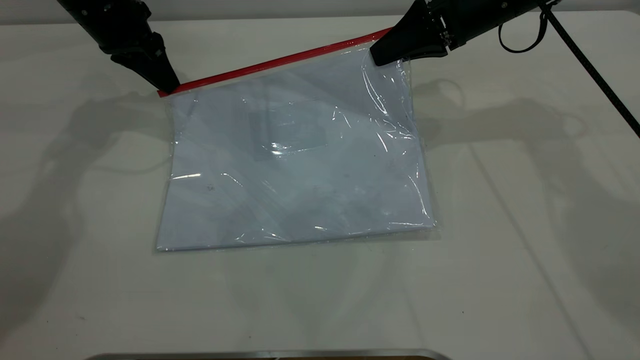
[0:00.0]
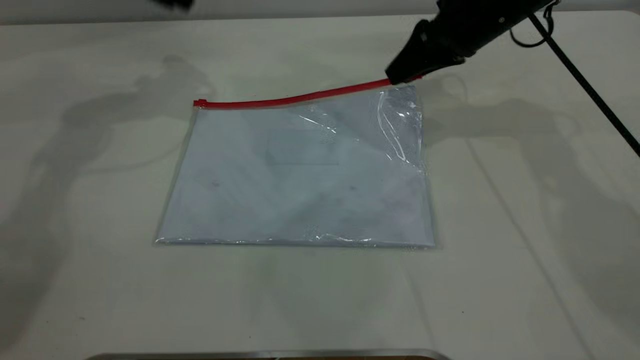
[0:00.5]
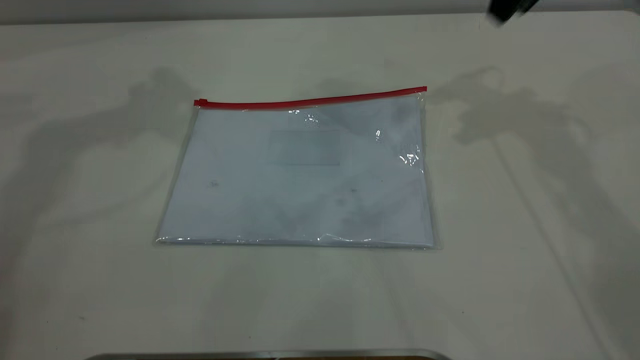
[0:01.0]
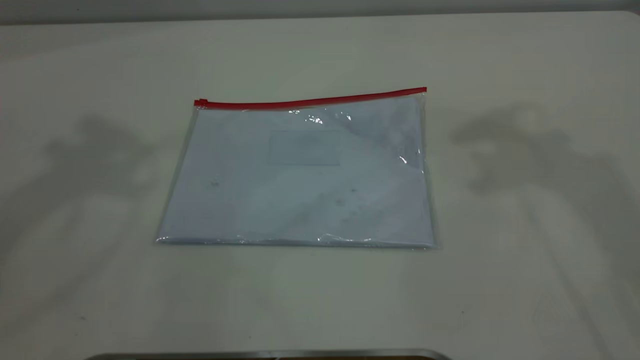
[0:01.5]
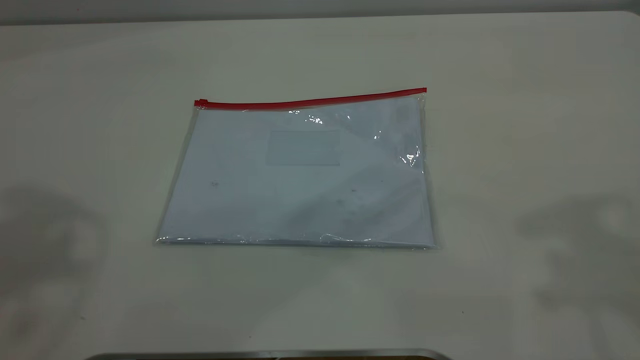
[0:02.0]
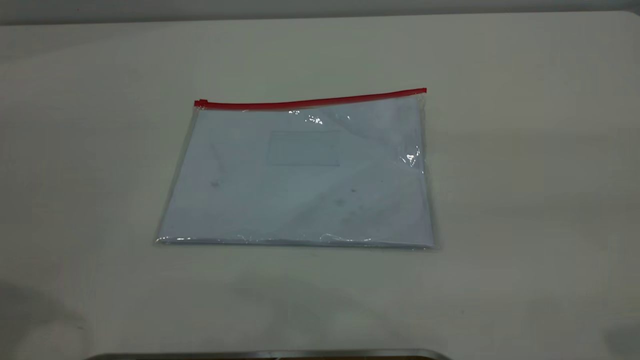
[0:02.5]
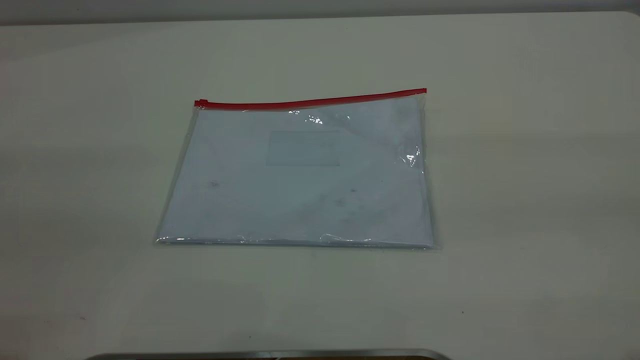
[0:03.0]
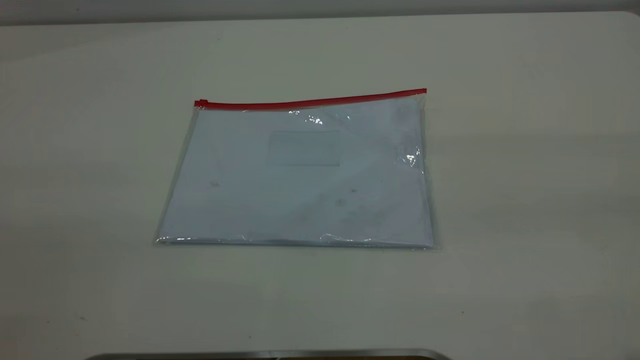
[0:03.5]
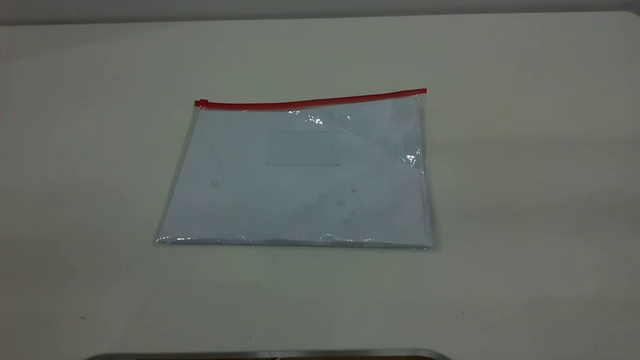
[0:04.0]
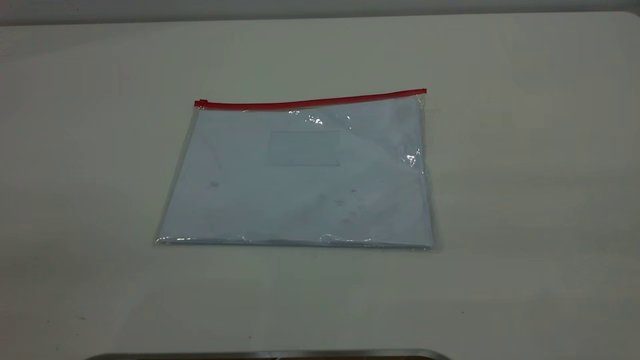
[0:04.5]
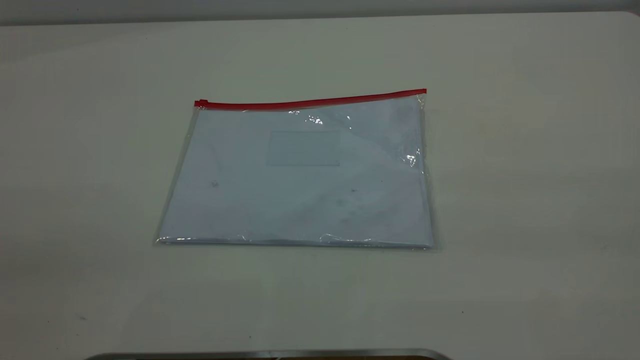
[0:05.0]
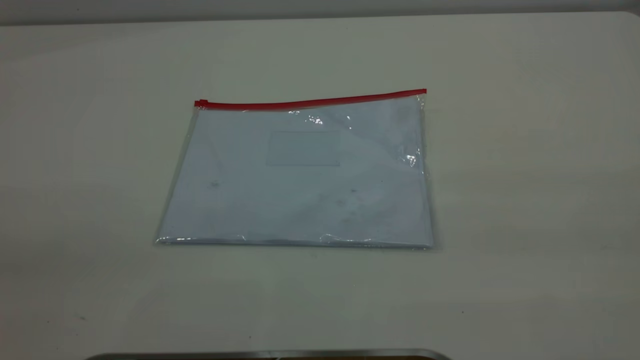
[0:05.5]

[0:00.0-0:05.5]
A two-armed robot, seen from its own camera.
0.0 to 2.0 s: The grippers both shift upward and backward by roughly 40 cm. The right gripper opens its fingers. Meanwhile the left gripper opens its fingers.

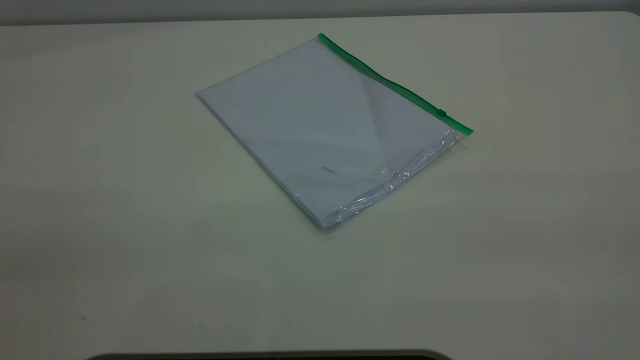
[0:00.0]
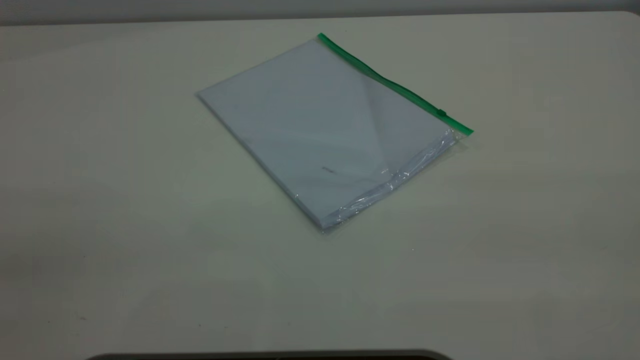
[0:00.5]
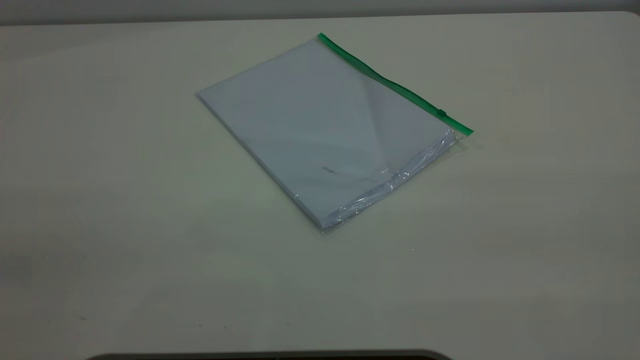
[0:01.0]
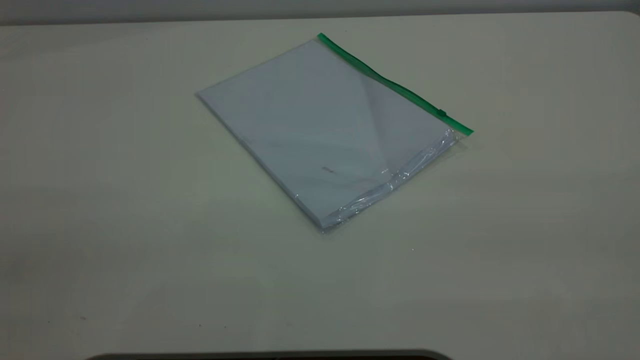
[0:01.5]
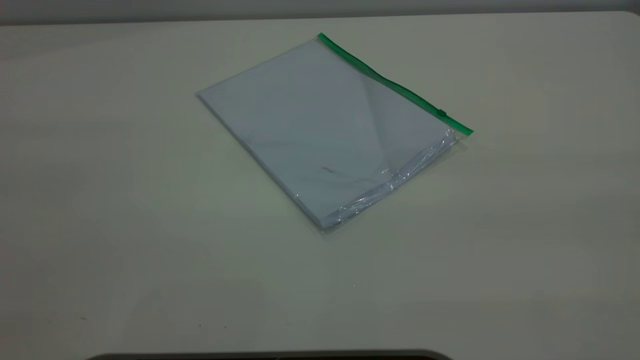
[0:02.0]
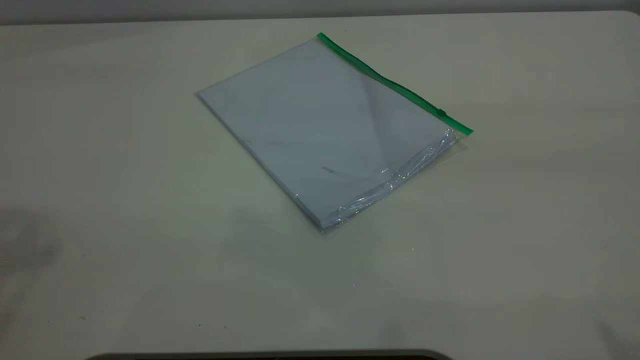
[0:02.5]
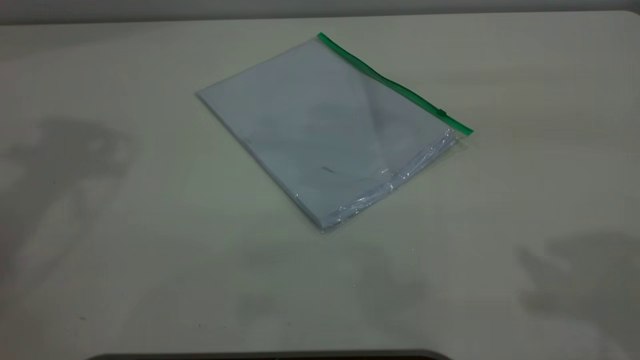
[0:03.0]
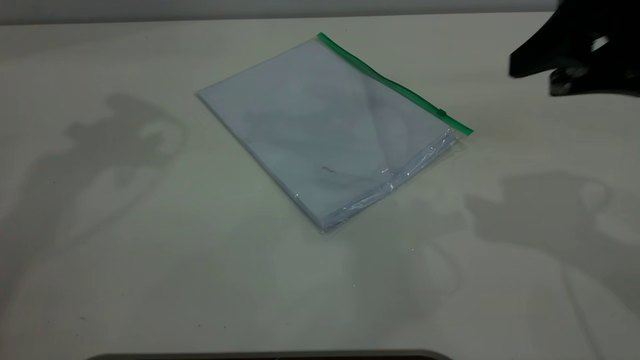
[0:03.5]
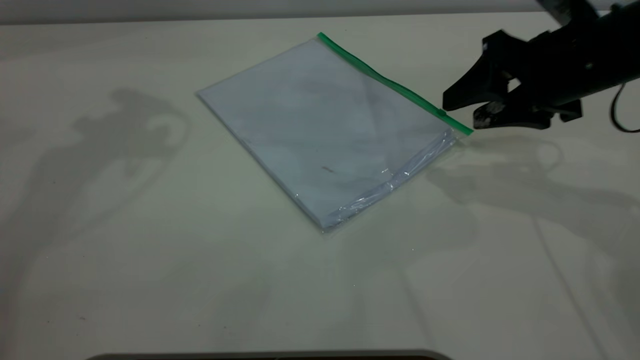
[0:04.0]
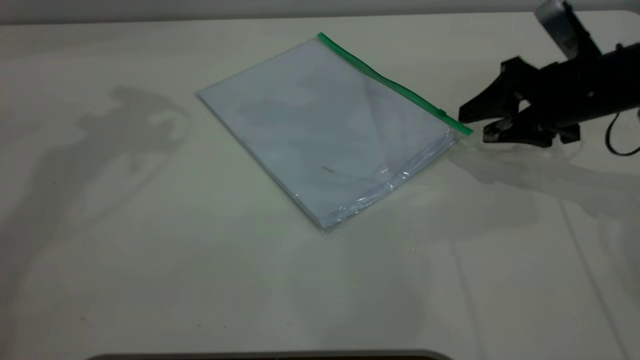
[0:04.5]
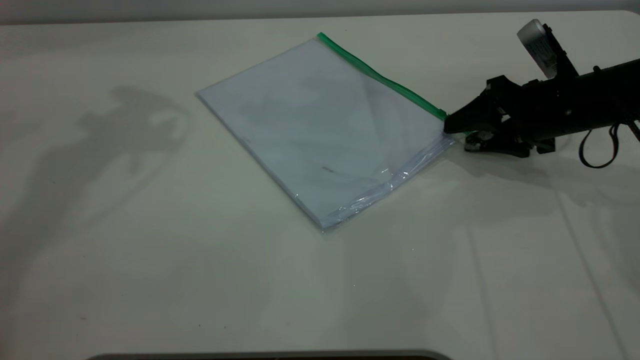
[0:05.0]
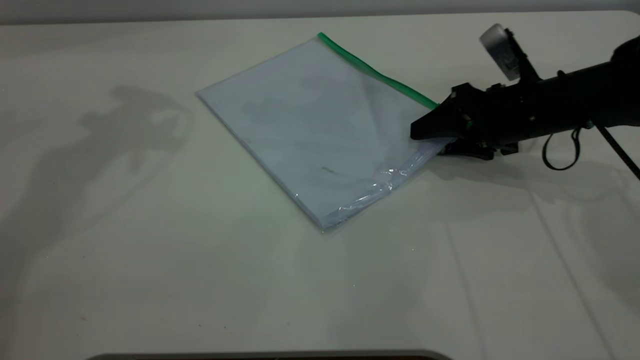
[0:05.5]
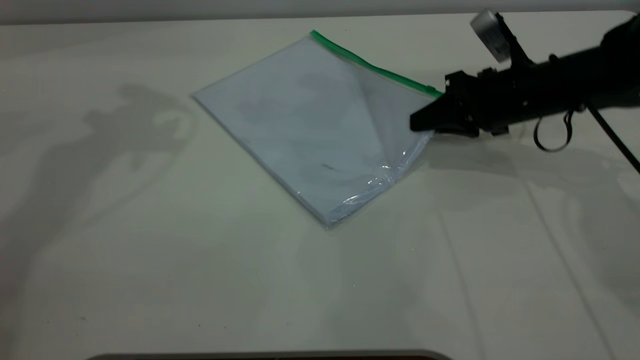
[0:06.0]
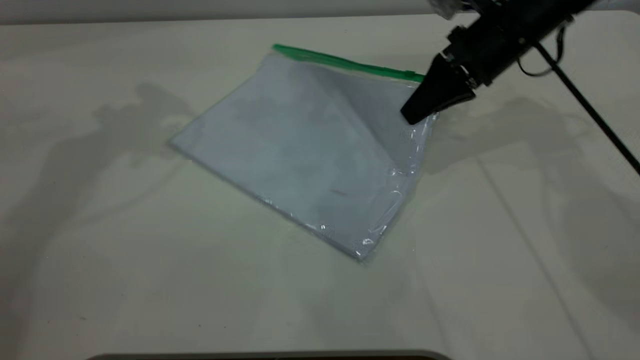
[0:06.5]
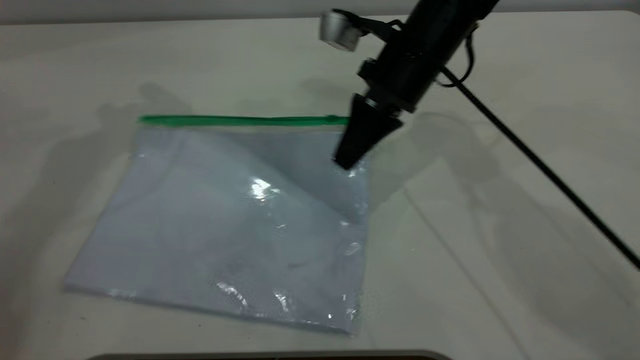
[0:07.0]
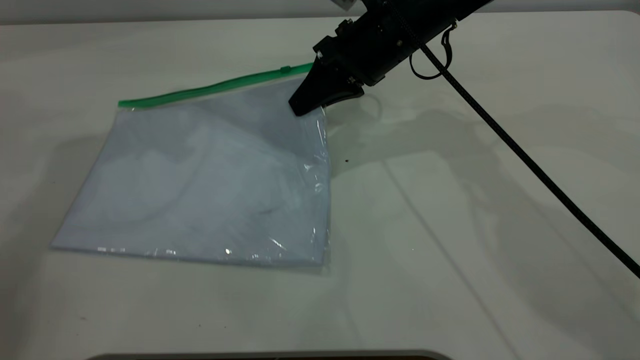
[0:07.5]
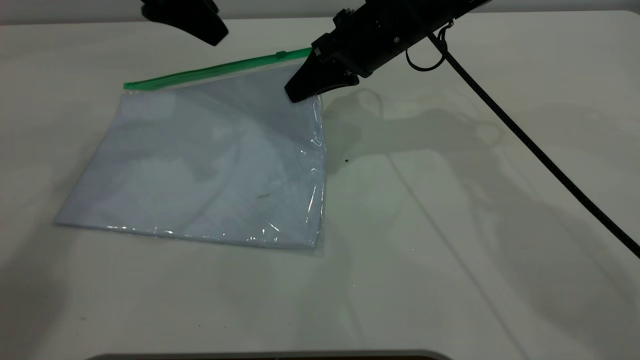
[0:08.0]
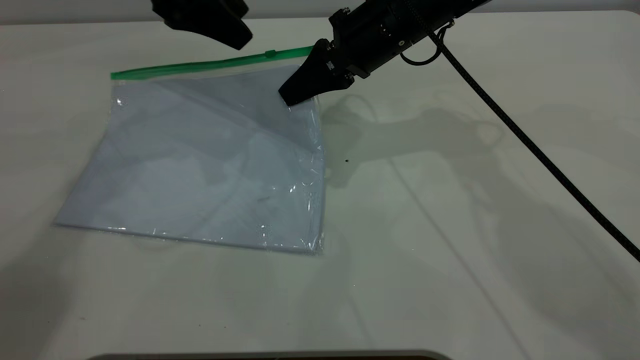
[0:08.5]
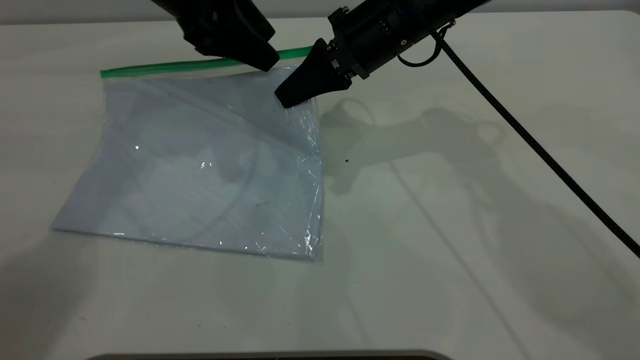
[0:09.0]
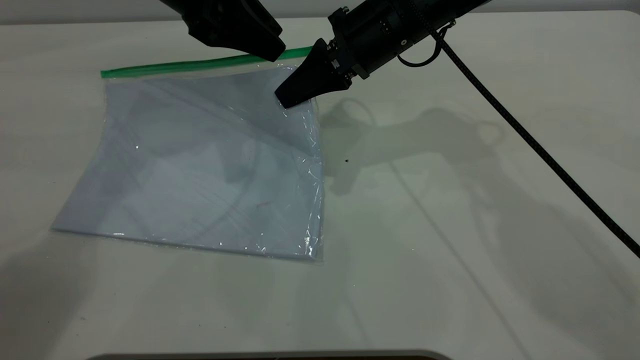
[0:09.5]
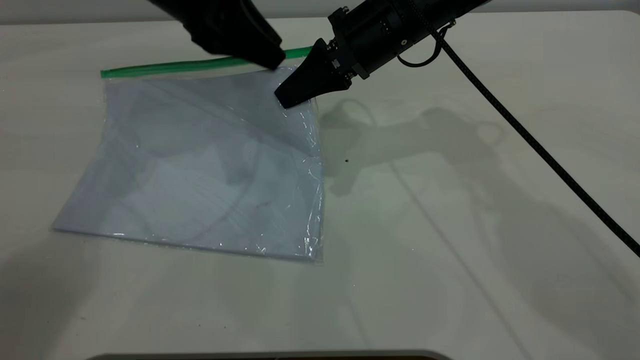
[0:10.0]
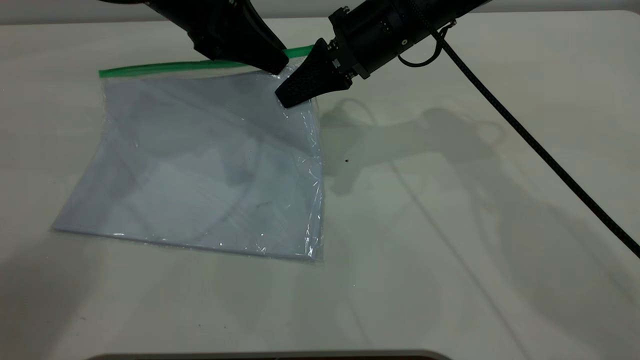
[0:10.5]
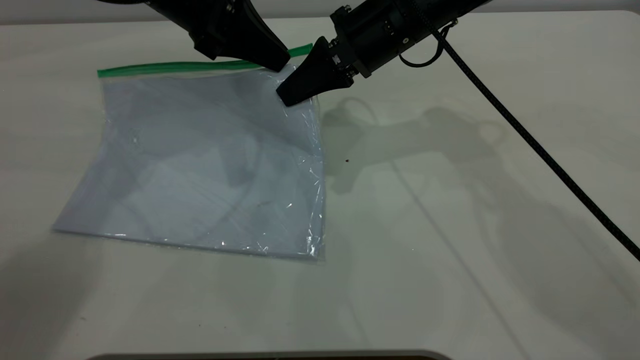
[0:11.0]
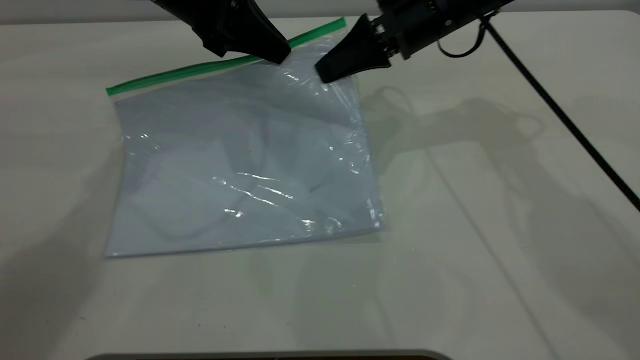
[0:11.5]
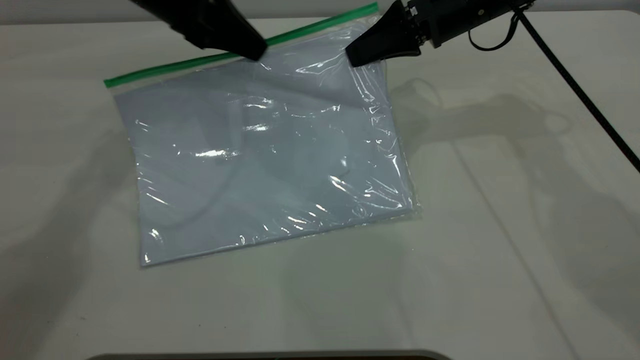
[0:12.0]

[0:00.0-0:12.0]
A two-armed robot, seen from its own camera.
Step, 0.0 to 6.0 s: Pick up the transparent plastic bag with the right gripper.
2.0 to 4.0 s: The right gripper is displaced forward and downward by about 40 cm.
4.0 to 6.0 s: The right gripper goes roughly 10 cm downward and forward, and closes its fingers.
6.0 to 8.0 s: The left gripper heads downward and to the right, covering about 10 cm, while the right gripper moves to the left and upward, some 15 cm.
8.0 to 10.0 s: The left gripper ends up some 5 cm from where it was, and closes up.
10.0 to 12.0 s: The left gripper closes its fingers. Meanwhile the right gripper heads to the right, covering about 10 cm.

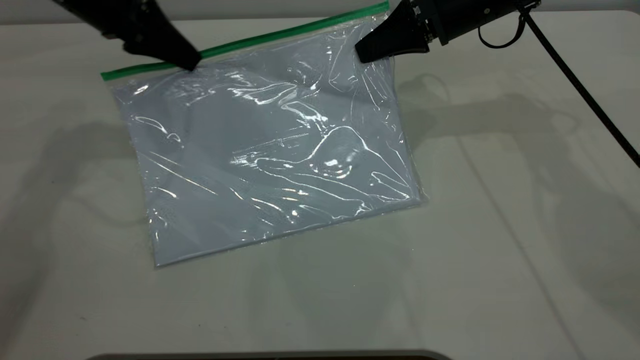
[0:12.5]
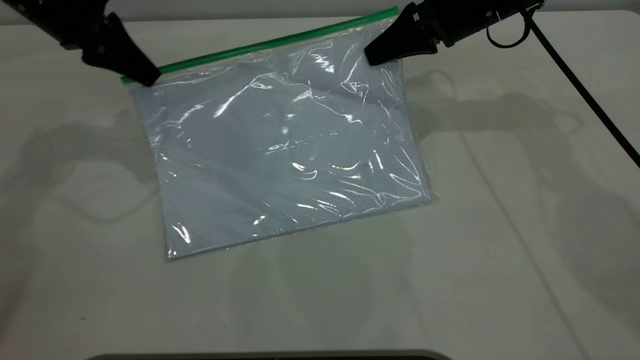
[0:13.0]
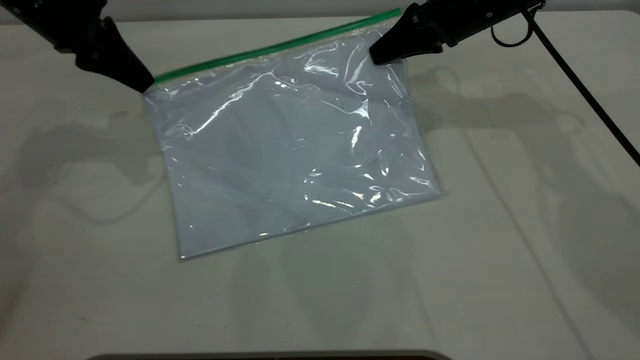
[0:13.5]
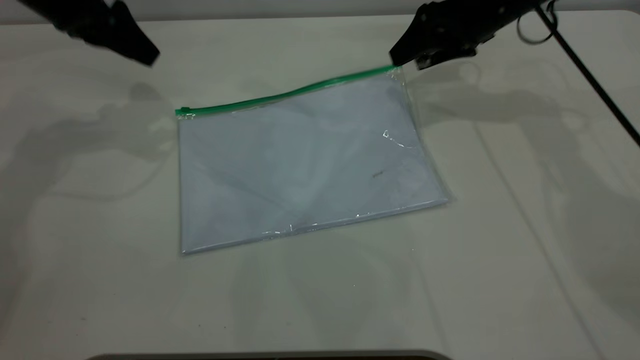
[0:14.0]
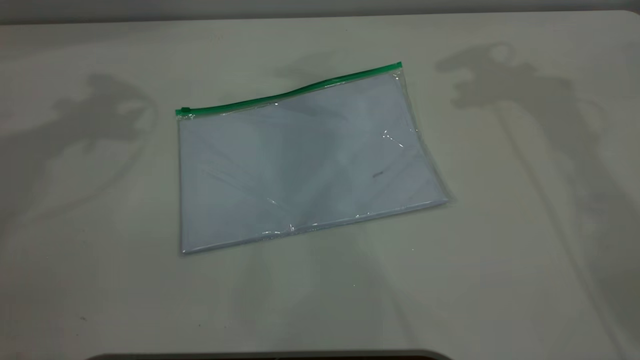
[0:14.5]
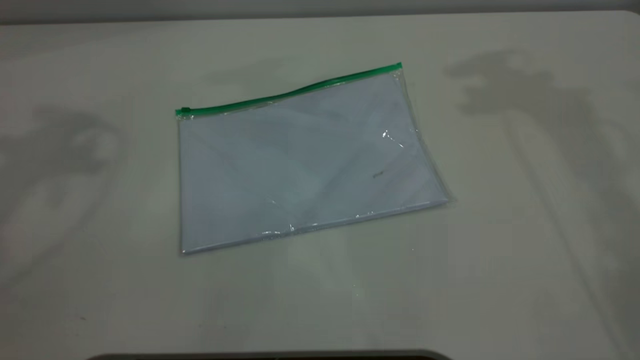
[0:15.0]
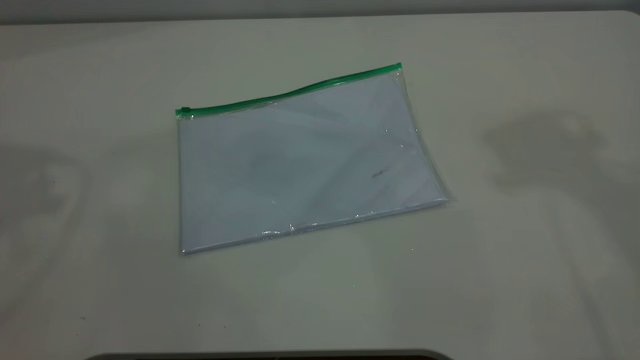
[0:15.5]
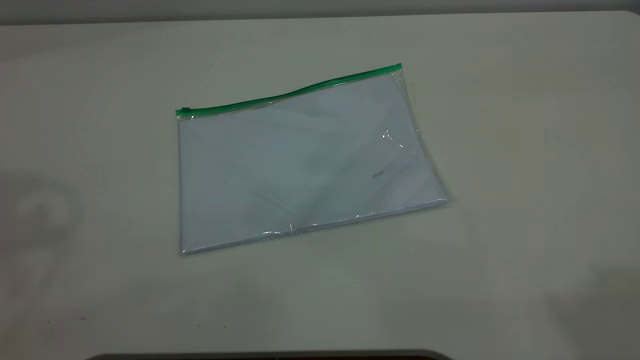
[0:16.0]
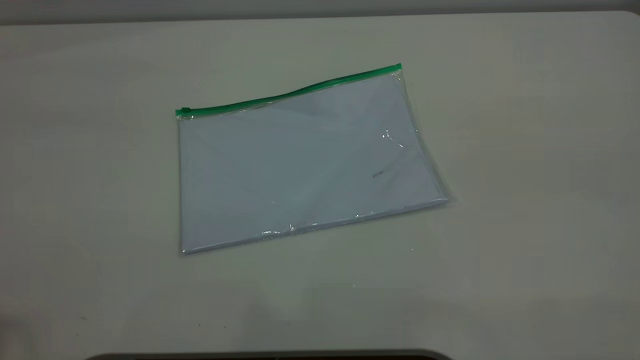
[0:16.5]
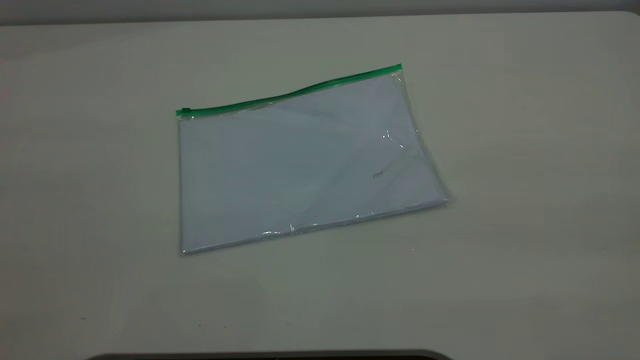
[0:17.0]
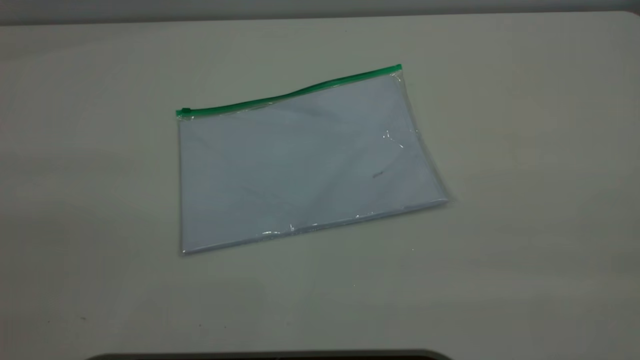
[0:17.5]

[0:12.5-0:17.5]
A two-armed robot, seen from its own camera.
12.5 to 15.0 s: The two grippers go approximately 30 cm upward. The left gripper opens its fingers, while the right gripper opens up.
